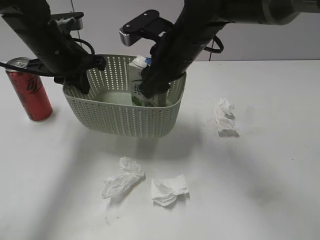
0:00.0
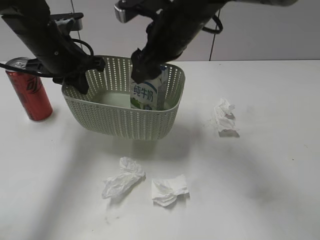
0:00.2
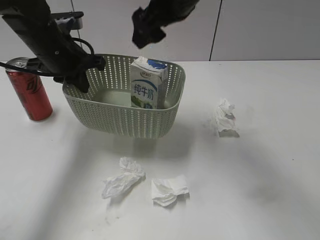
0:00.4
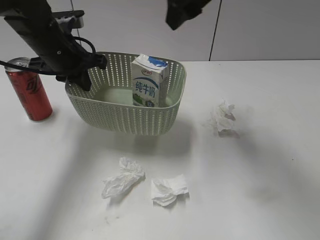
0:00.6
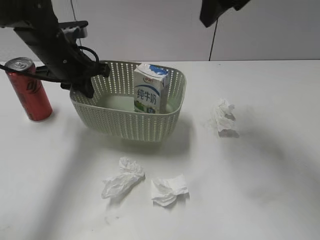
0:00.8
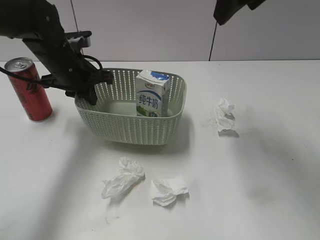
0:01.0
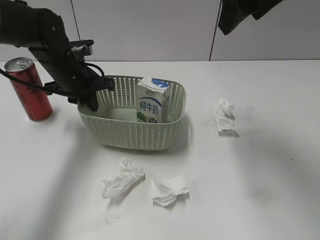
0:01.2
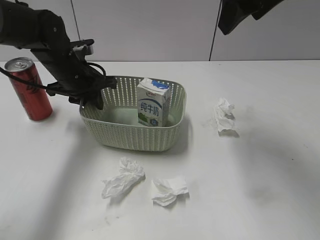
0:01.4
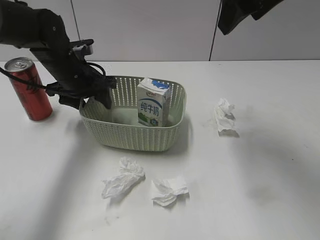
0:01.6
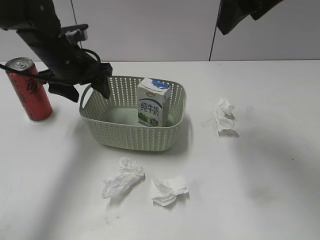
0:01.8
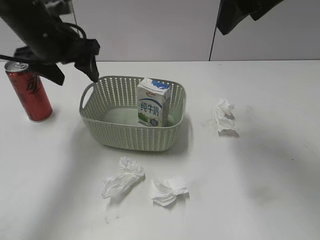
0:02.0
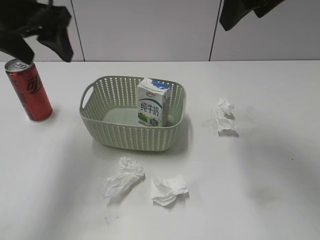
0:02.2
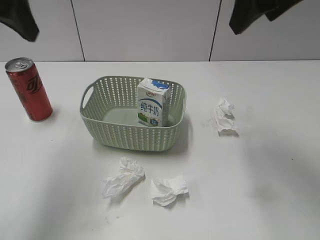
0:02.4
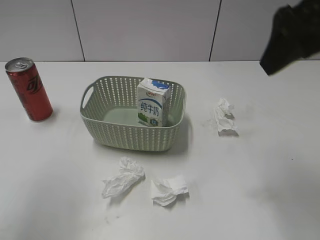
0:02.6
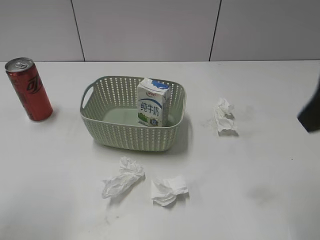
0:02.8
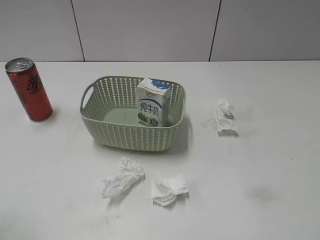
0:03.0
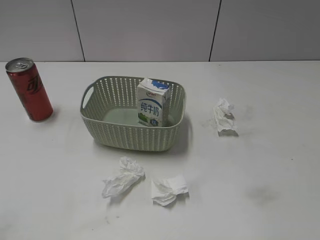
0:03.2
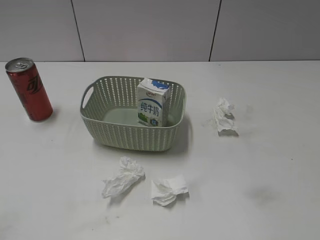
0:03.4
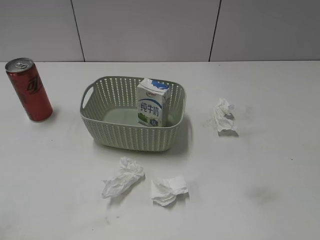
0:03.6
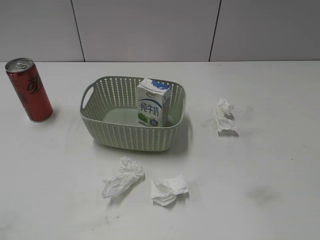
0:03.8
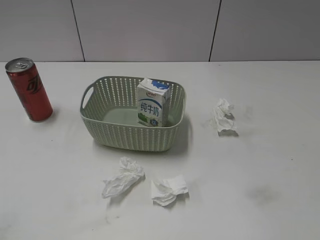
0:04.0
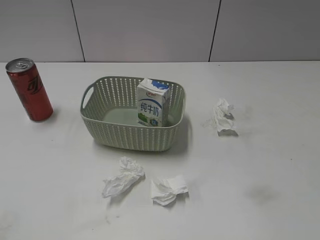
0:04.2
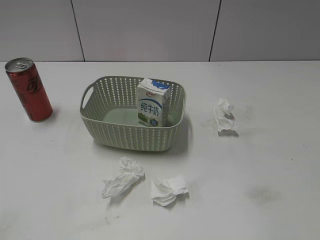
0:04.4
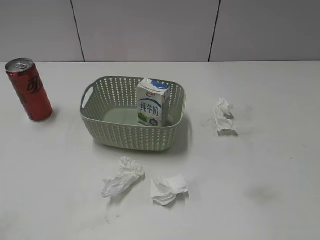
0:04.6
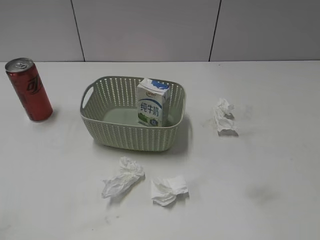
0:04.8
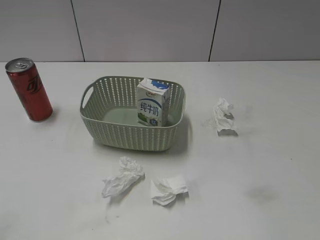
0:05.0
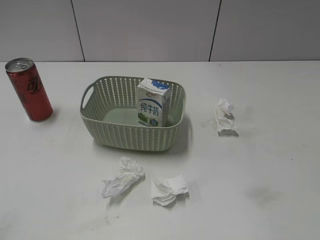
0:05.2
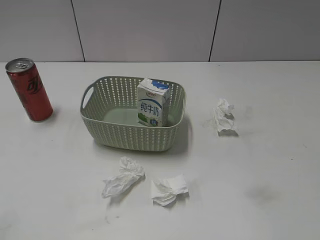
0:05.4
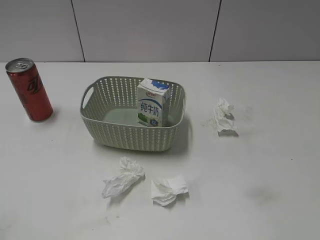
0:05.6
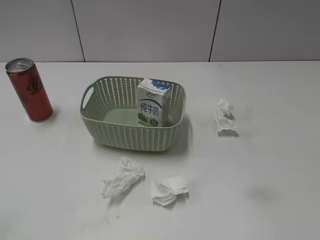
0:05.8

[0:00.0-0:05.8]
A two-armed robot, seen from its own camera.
Step, 0:00.6 to 0:02.0: Place the basket on the table with left gripper.
0:00.0 to 0:01.4: The right gripper moves upward and to the right, approximately 20 cm, and opens up. The left gripper moves downward, about 5 cm.
0:01.4 to 0:02.8: The left gripper goes approximately 35 cm upward and backward, and opens; the right gripper heads backward and to the right, covering approximately 15 cm.
0:02.8 to 0:04.4: The right gripper shifts some 25 cm backward, to the right and downward.
